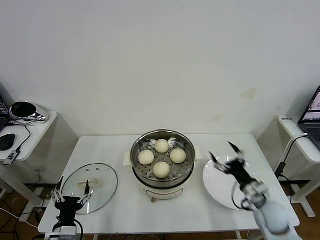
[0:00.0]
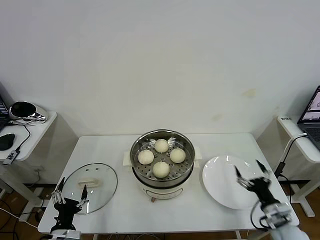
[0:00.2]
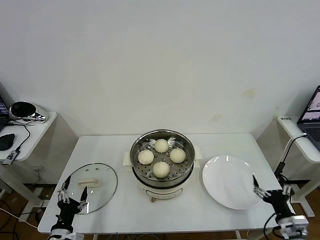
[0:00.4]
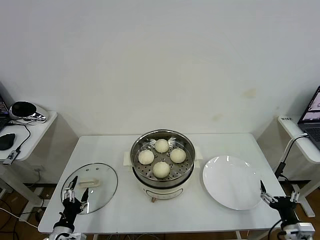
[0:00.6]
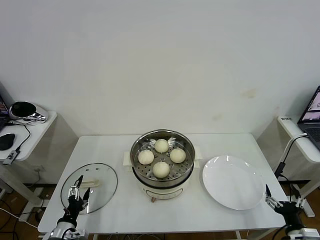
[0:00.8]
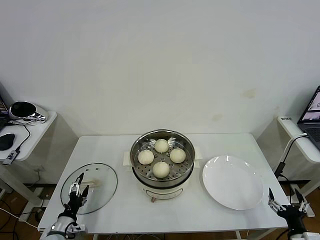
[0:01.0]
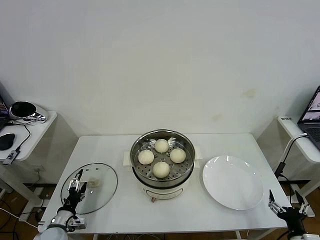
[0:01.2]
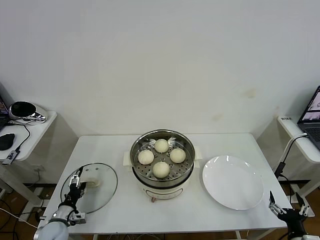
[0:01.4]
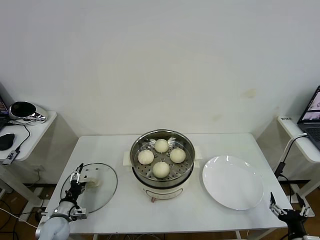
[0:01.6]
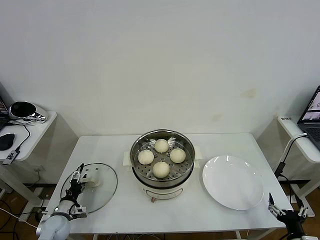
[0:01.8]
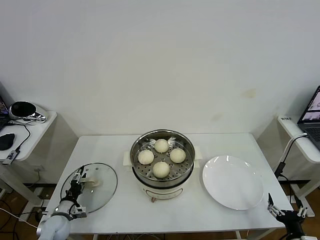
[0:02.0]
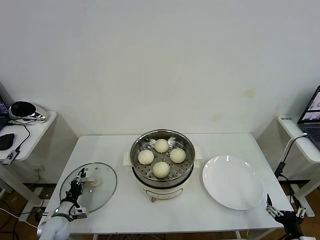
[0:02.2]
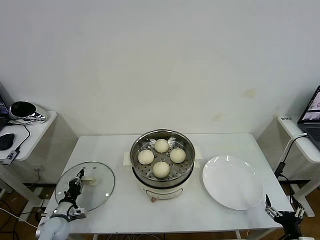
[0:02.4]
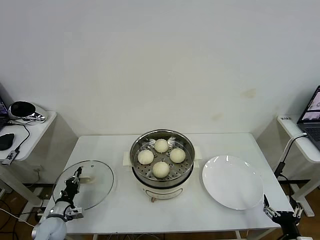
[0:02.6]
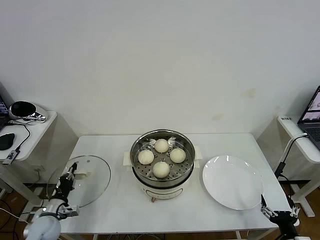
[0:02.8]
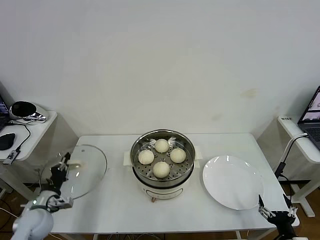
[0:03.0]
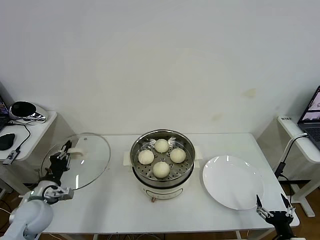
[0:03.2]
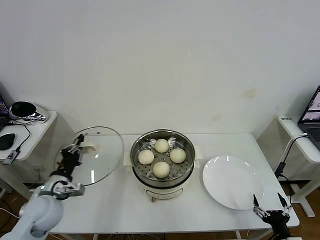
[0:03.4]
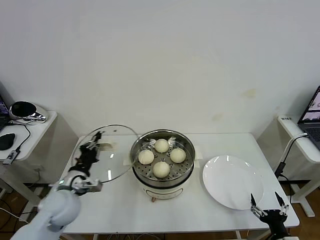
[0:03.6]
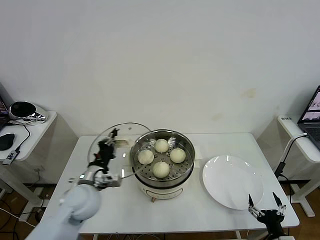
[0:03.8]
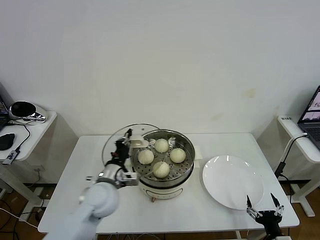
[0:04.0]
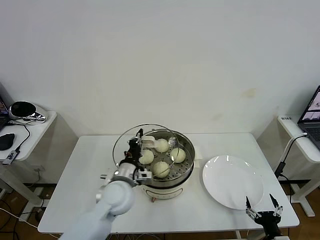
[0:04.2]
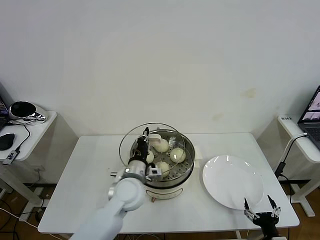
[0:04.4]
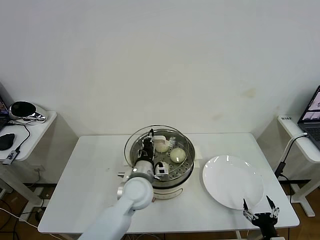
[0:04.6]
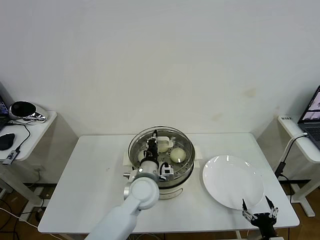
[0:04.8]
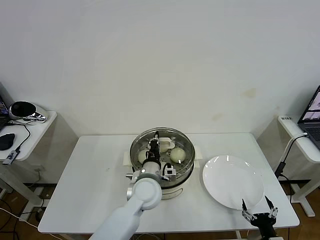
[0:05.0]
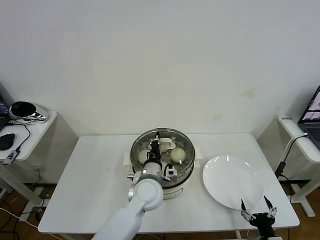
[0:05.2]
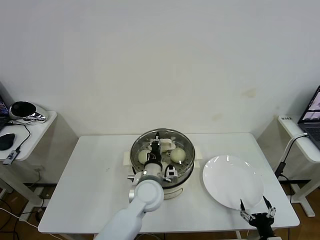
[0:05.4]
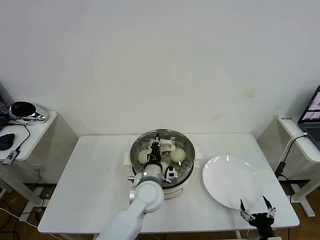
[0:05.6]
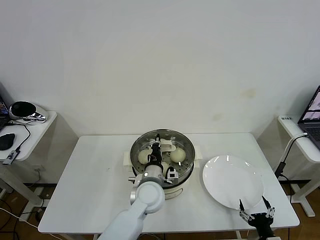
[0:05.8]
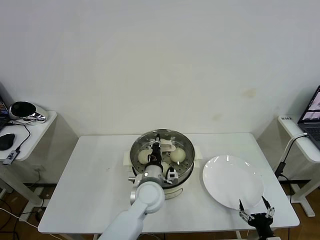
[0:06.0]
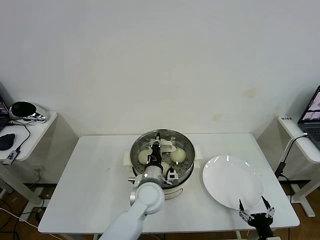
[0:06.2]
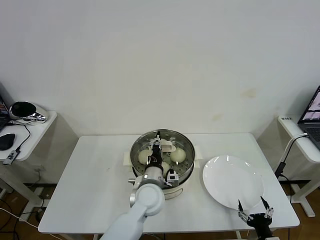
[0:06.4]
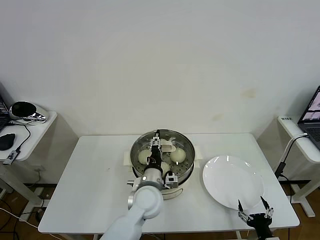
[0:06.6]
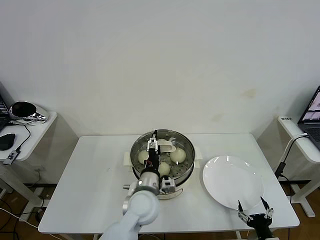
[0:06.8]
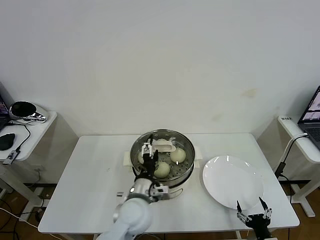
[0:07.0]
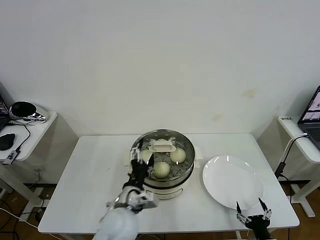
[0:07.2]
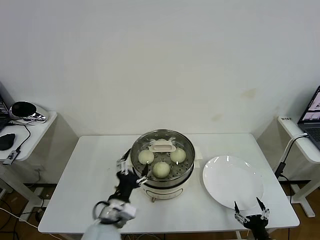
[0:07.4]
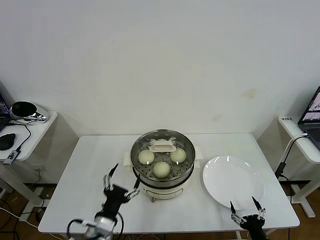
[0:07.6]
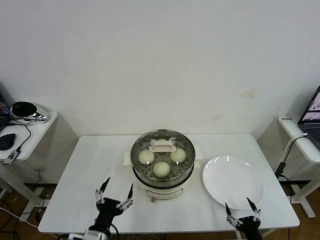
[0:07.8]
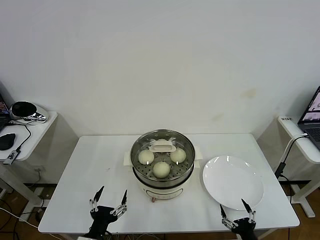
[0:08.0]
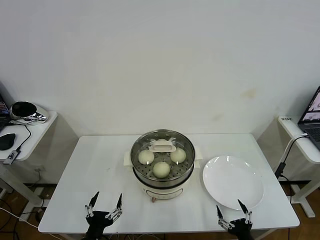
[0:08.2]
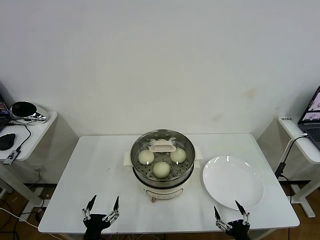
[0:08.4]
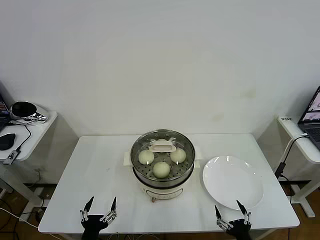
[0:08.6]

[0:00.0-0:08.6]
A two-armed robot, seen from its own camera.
Task of the whole recording: take steamed baozi put them in steamer then cover it.
Step, 0:00.0 to 0:02.6: Grasp the pot lid with left gripper.
Step, 0:02.8 to 0:07.0: Place the pot lid on the steamer with left gripper.
0:00.0 to 0:01.4: The left gripper shifts roughly 15 cm to the left, forward and downward. The right gripper goes approximately 20 cm backward and to the right.
0:01.4 to 0:02.8: The left gripper closes.
0:02.8 to 0:04.4: The left gripper is displaced to the right and upward by roughly 35 cm.
0:04.4 to 0:05.8: The left gripper shifts roughly 5 cm to the right.
0:05.8 to 0:07.2: The left gripper travels backward and to the left by approximately 10 cm, and opens up.
0:07.2 to 0:08.6: The right gripper is displaced to the left by approximately 5 cm. The left gripper heads backward, to the left and downward, covering roughly 25 cm.

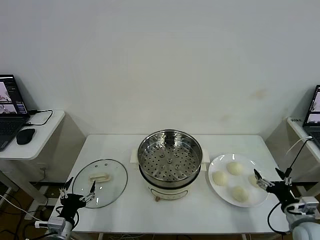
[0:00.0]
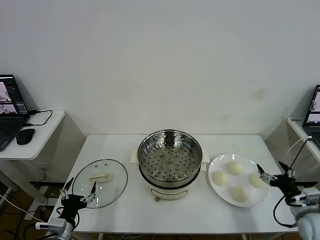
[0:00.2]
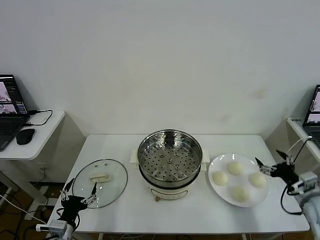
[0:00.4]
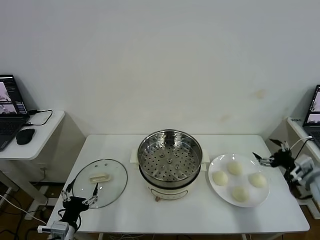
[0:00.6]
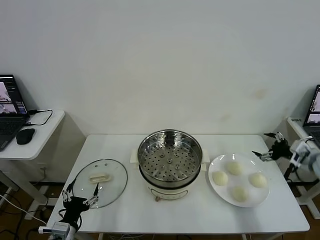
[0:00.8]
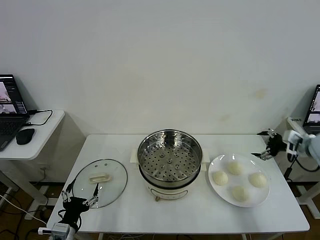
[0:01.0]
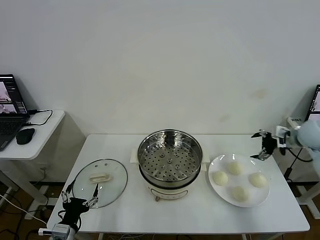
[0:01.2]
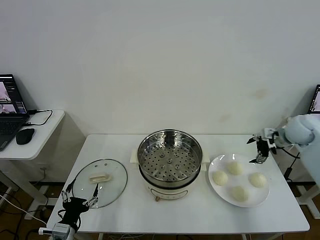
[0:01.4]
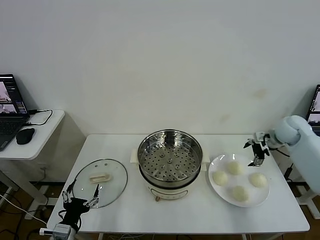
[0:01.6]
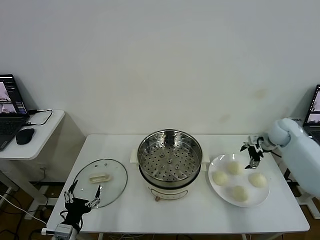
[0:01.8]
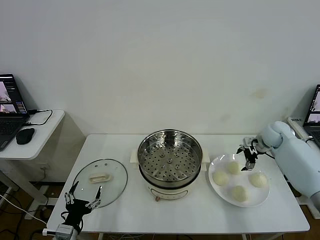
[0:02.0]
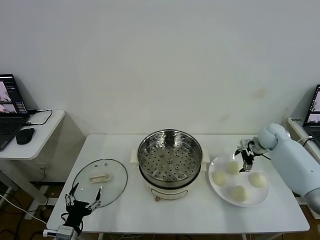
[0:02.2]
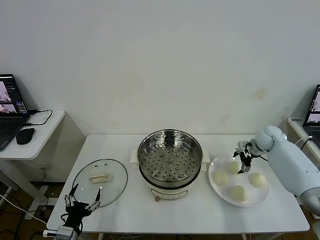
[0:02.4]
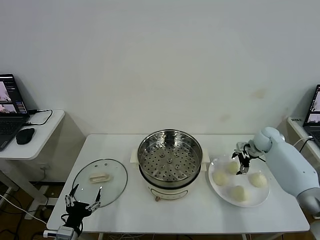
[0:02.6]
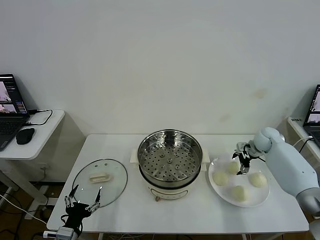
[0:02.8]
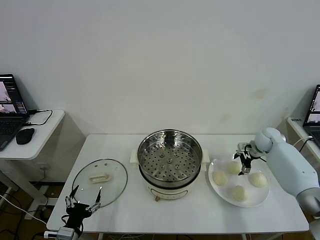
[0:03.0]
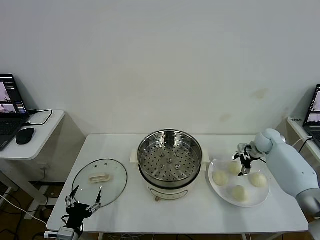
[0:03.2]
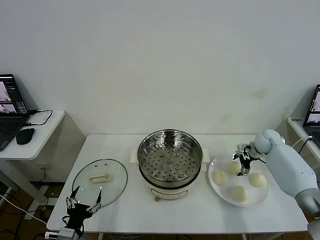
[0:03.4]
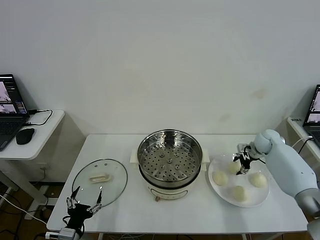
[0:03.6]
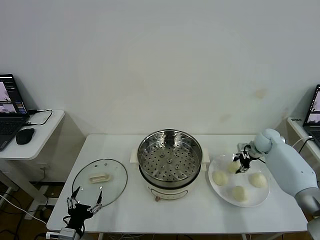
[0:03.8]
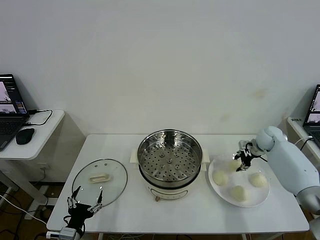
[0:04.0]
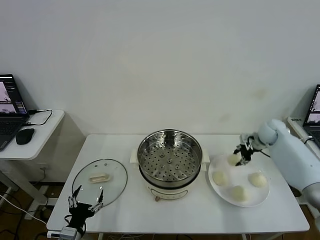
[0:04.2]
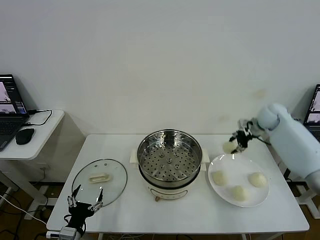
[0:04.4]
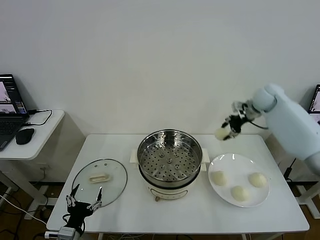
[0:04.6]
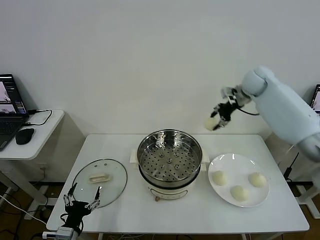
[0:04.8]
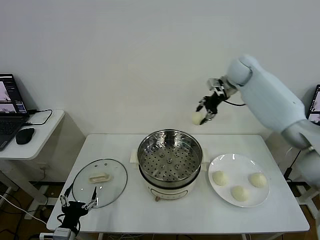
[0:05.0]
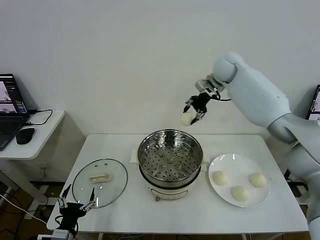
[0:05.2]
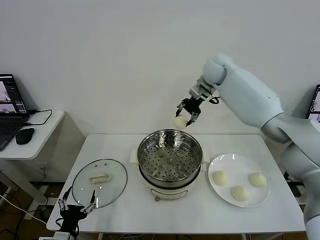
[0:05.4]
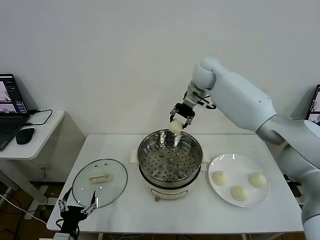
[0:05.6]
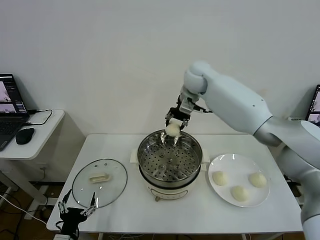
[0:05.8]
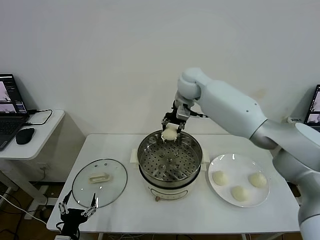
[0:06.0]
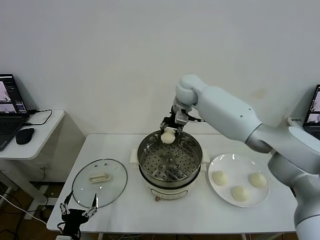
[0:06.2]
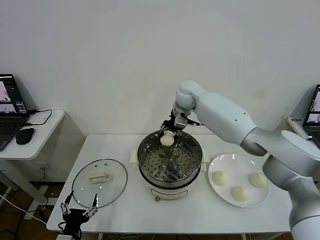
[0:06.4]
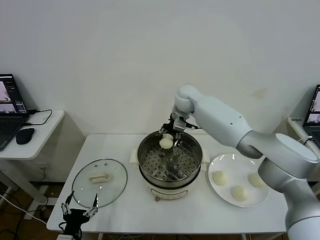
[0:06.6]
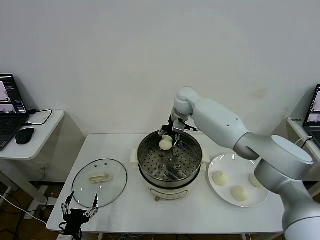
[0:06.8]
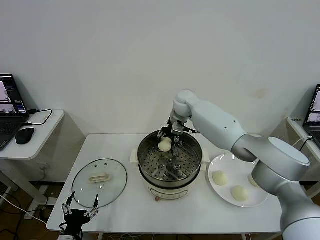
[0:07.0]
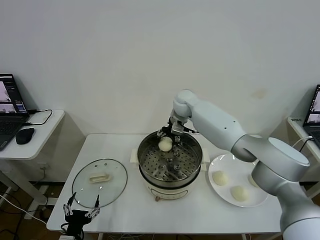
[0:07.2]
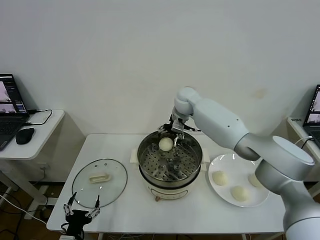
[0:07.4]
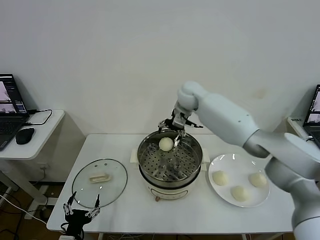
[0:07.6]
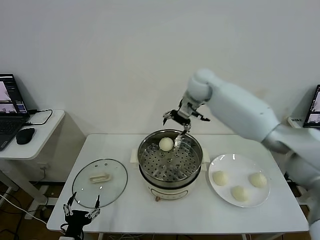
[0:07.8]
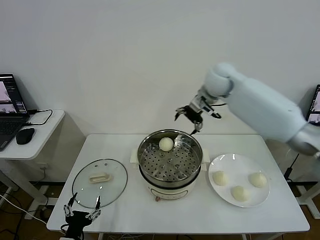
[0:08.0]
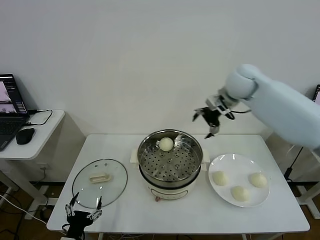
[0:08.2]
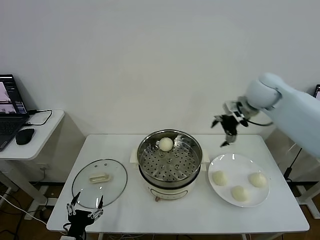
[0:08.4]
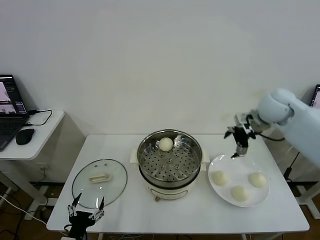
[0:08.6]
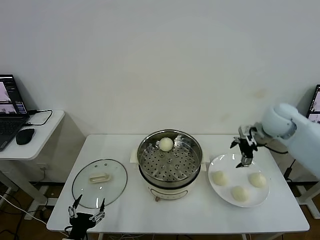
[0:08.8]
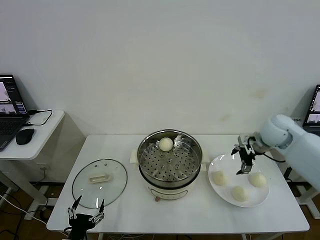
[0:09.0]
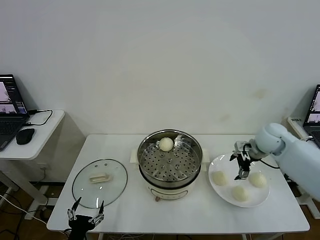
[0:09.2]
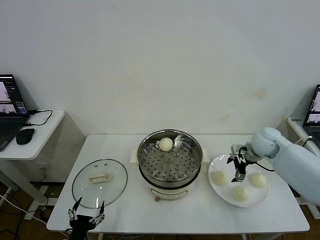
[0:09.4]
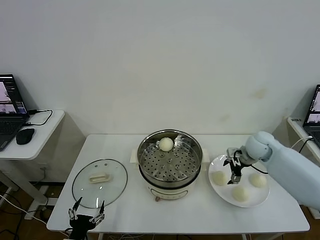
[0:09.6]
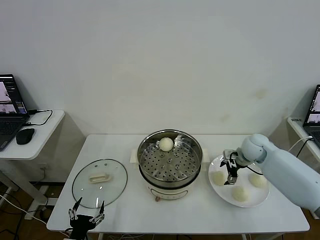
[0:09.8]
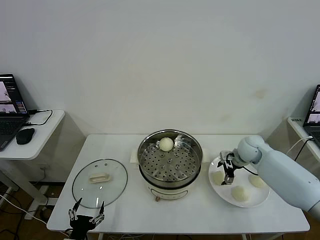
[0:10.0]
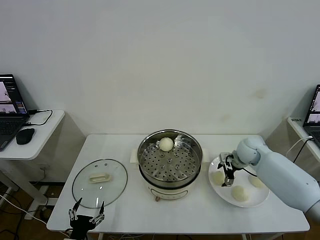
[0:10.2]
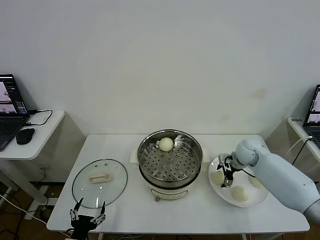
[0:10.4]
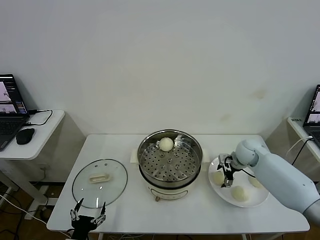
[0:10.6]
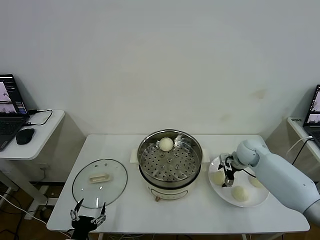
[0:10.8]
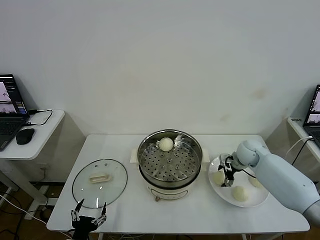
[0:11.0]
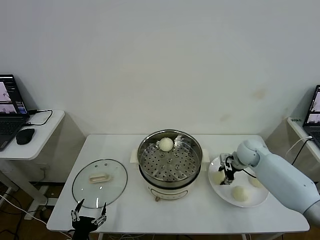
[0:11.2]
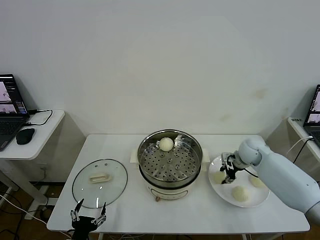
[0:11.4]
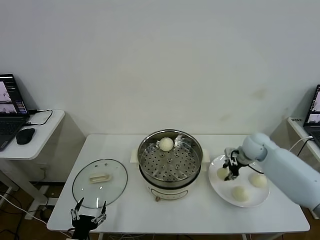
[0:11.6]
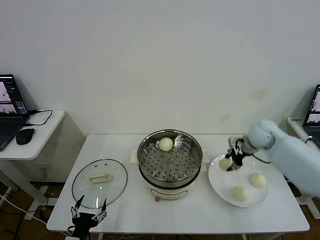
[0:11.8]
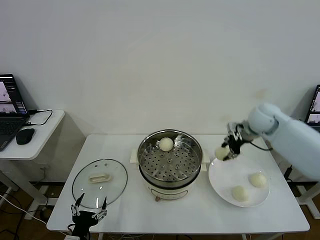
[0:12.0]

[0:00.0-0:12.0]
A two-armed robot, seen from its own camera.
Task of the whole recording: take steamed baozi put them in steamer then cover it.
Step, 0:00.0 to 0:03.6: Grasp the baozi in the plate with right gripper.
Step, 0:03.8 to 0:07.4: Place the baozi on the steamer with right gripper.
Step, 0:07.6 to 0:11.2: Grasp the baozi in the plate with right gripper.
0:01.6 to 0:03.0: The right gripper moves downward, approximately 10 cm.
0:03.0 to 0:04.4: The right gripper goes some 15 cm upward, and closes up.
0:04.4 to 0:06.0: The right gripper is displaced to the left by roughly 30 cm.
0:06.0 to 0:07.6: The right gripper reaches roughly 10 cm downward, then returns, and opens its fingers.
0:07.6 to 0:09.0: The right gripper goes roughly 30 cm to the right, backward and downward.
0:09.0 to 0:10.4: The right gripper moves downward, about 10 cm.
0:10.4 to 0:12.0: The right gripper shifts approximately 20 cm upward, and closes its fingers.

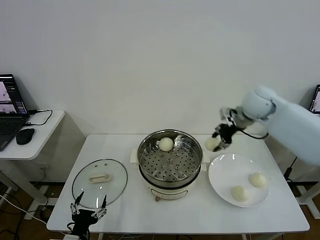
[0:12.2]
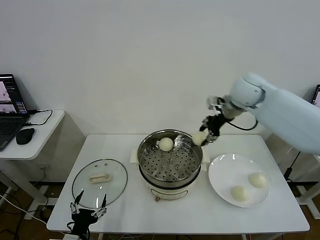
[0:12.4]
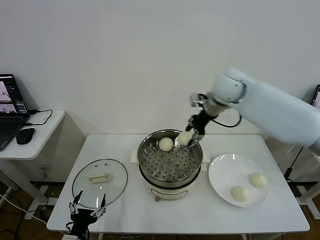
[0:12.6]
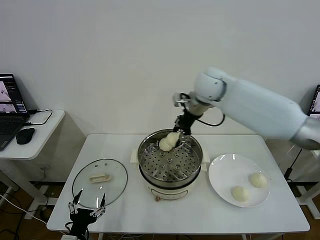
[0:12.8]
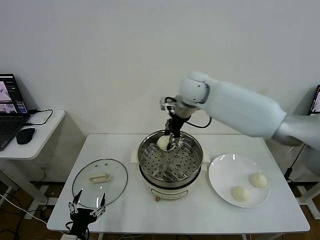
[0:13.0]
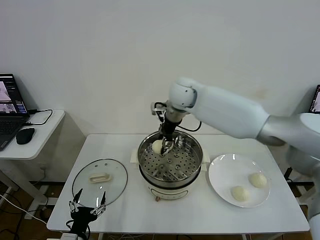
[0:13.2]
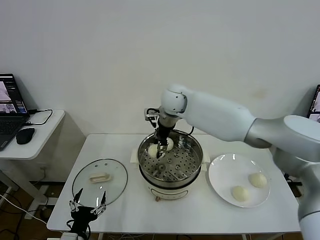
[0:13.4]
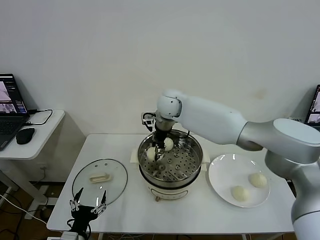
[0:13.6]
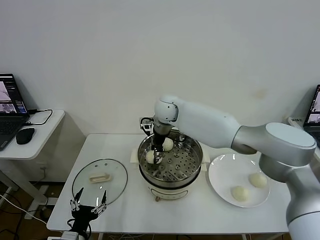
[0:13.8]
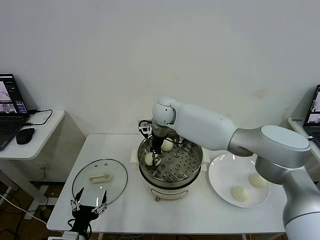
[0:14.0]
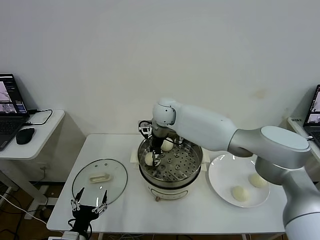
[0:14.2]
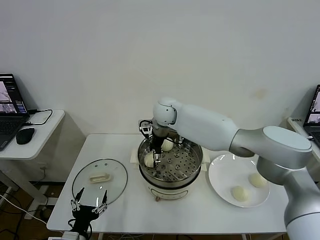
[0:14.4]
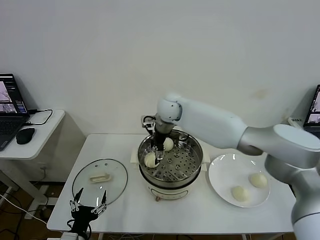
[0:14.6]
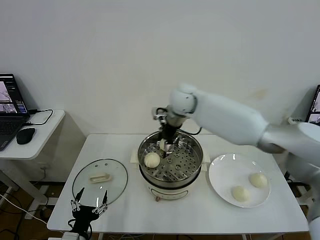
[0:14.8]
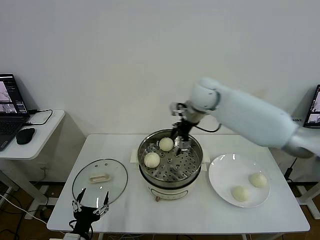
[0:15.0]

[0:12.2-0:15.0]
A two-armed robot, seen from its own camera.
Task of the whole recording: take steamed baozi put them in steamer then cover it.
Step, 0:12.2 to 0:14.6: Place the baozi on the steamer with right gripper.
0:12.2 to 0:13.6: The right gripper moves to the left, about 25 cm.
0:13.6 to 0:15.0: The right gripper moves to the right and upward, about 15 cm, and opens its fingers.
